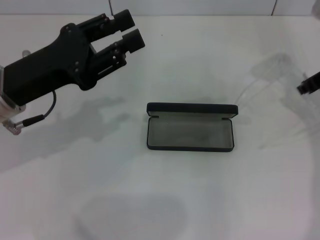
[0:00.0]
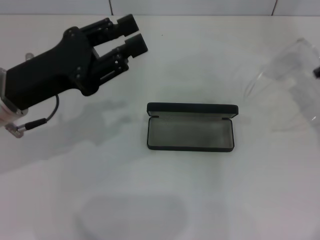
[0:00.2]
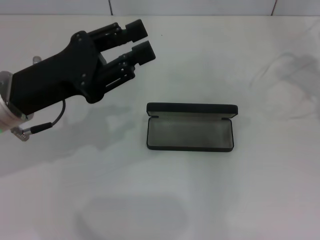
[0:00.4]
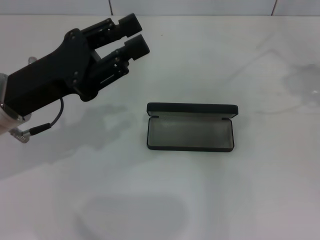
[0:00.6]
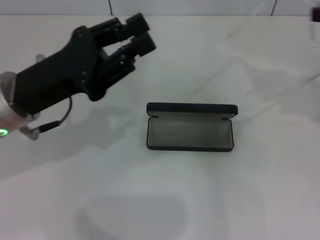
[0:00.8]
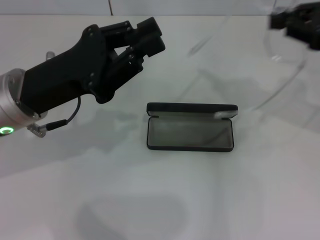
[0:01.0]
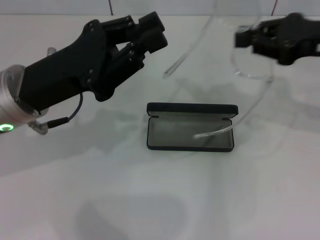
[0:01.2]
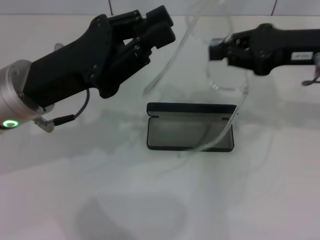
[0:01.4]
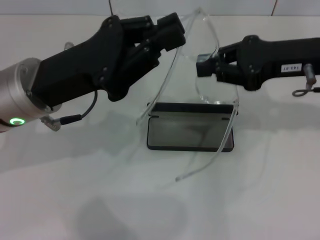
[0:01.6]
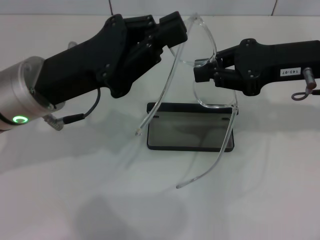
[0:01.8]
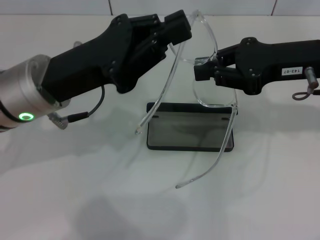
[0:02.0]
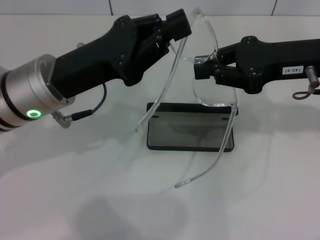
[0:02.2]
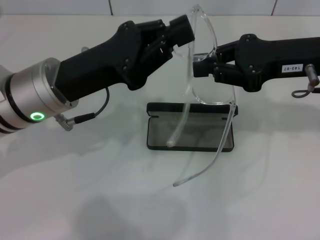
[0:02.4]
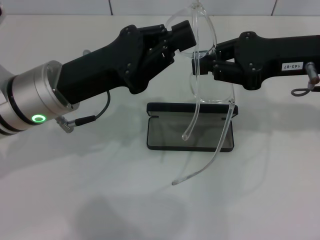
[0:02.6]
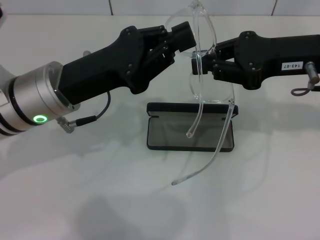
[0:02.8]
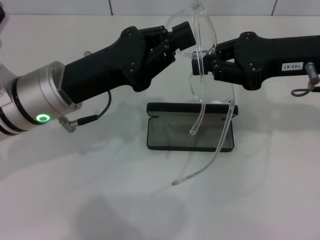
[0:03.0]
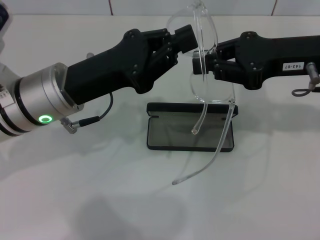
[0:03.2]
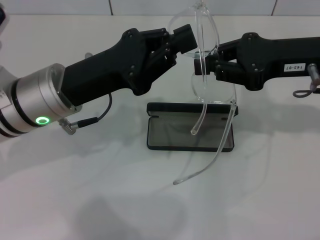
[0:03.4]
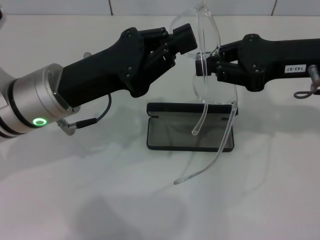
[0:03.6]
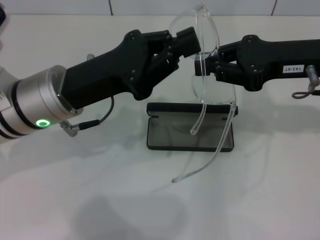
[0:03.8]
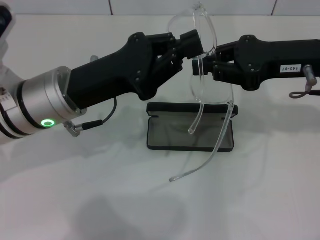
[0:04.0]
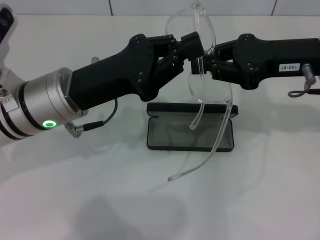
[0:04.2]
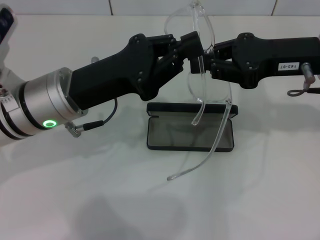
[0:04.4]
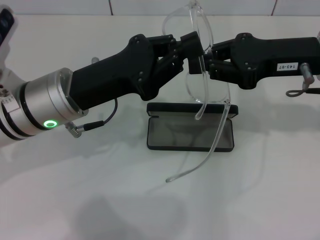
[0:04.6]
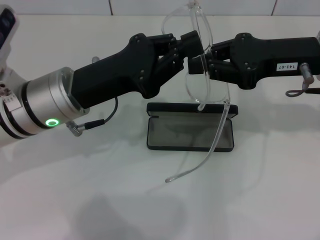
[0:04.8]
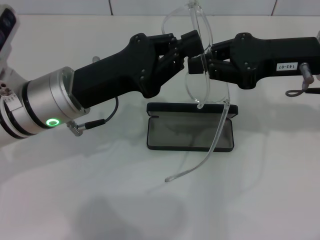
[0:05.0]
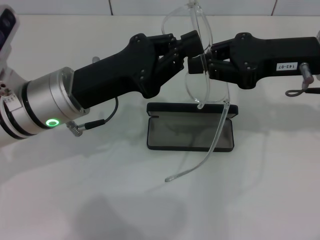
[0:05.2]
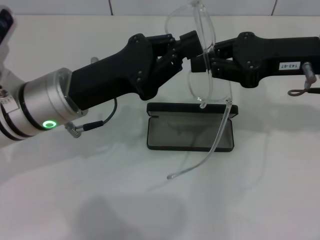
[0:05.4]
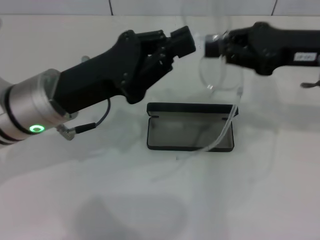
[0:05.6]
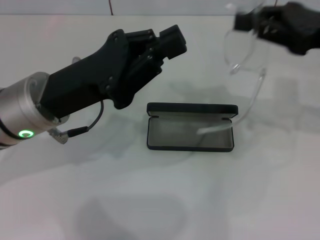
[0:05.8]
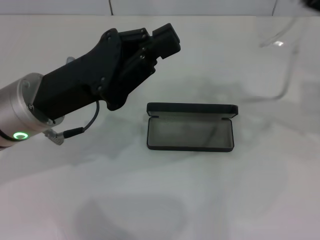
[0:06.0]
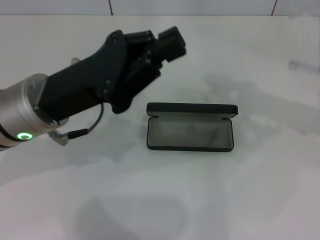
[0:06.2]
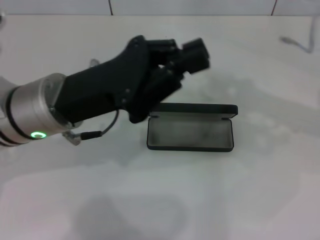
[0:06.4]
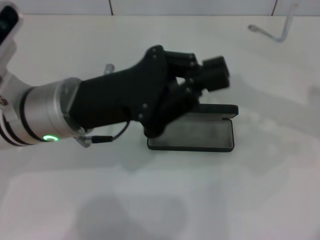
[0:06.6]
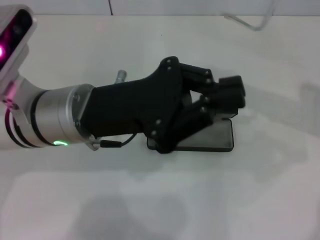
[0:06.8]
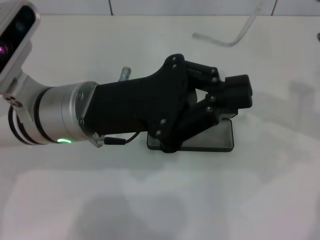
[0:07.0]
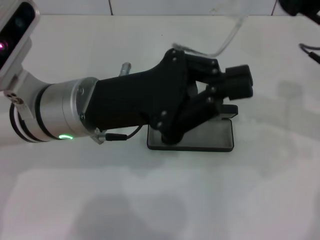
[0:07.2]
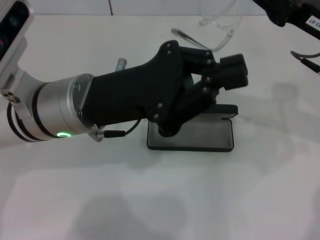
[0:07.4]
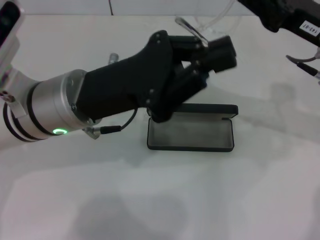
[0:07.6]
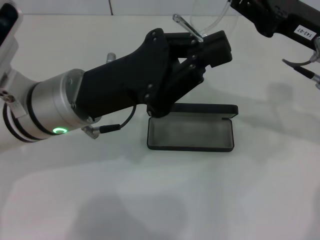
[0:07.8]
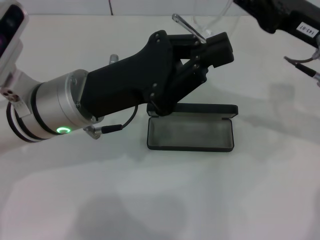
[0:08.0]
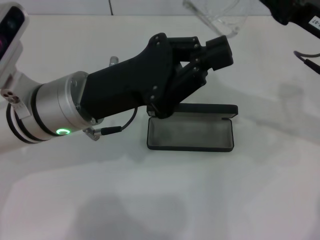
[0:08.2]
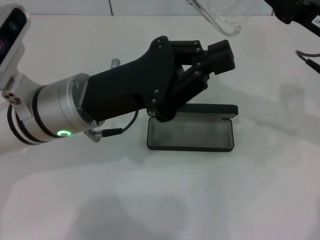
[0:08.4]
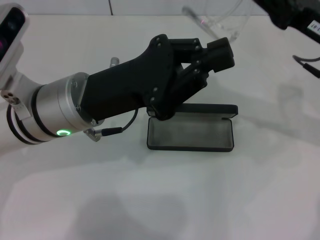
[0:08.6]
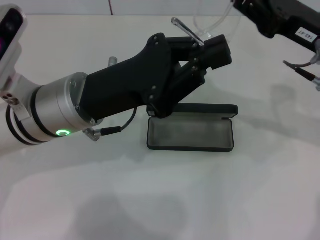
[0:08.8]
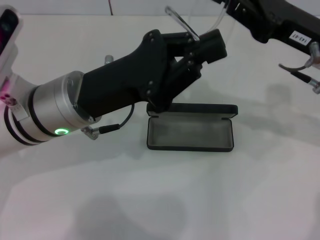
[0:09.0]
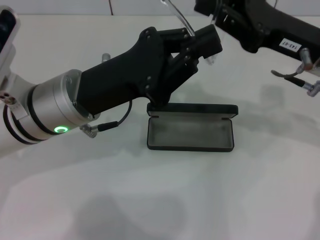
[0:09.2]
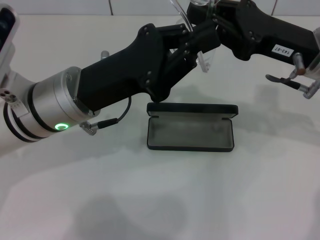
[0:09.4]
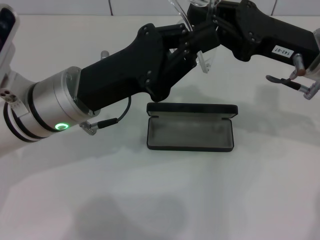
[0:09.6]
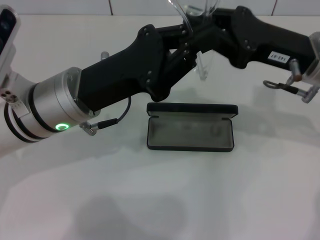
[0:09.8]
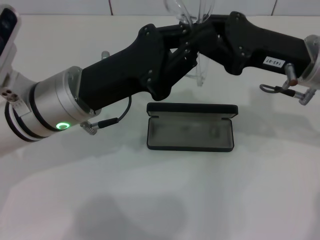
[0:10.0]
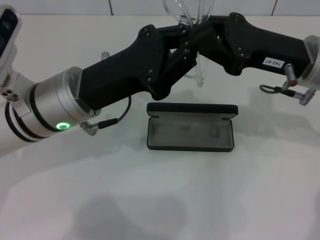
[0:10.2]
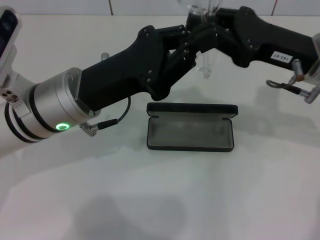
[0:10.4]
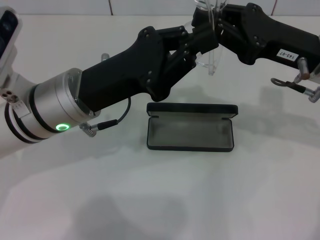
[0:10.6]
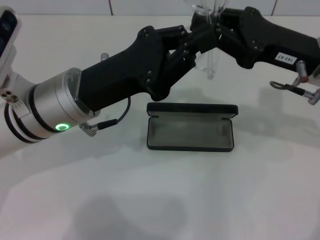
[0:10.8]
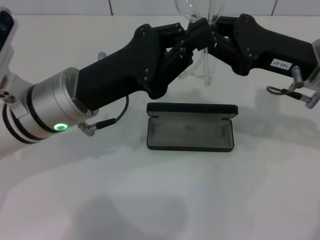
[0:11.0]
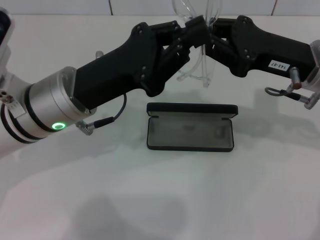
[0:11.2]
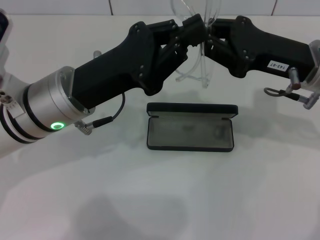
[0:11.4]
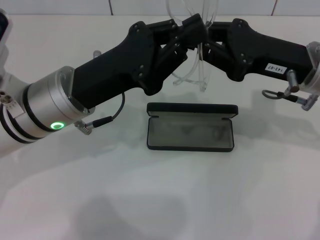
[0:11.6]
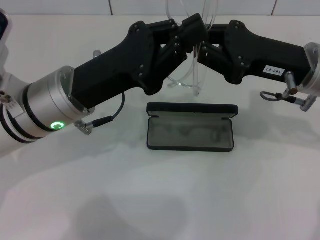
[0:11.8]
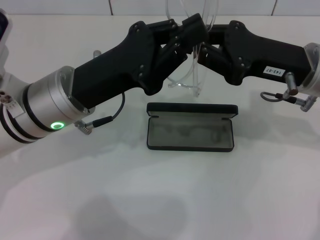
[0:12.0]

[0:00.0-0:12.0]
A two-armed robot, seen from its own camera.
0:00.0 to 0:01.6: The right gripper is displaced backward and to the left by about 10 cm.
0:01.6 to 0:03.0: The grippers stay close to where they were, moving slightly.
0:03.0 to 0:04.4: Both grippers stay about where they are.
0:04.4 to 0:06.0: The right gripper heads to the right, covering some 10 cm.
0:06.0 to 0:07.6: The right gripper travels to the left by about 5 cm.
0:07.6 to 0:10.4: The grippers stay close to where they were, moving slightly.
0:10.4 to 0:12.0: Neither gripper changes place.

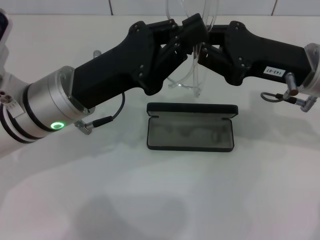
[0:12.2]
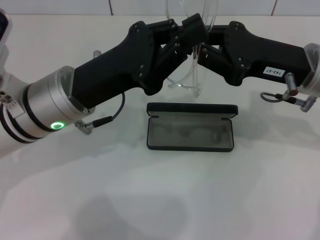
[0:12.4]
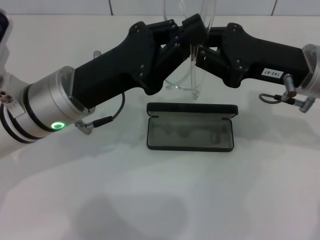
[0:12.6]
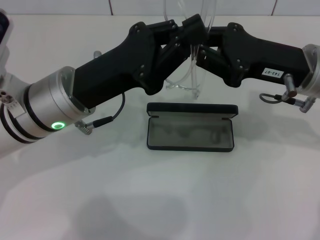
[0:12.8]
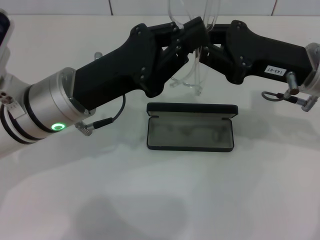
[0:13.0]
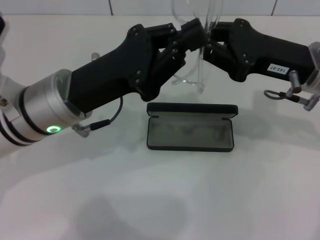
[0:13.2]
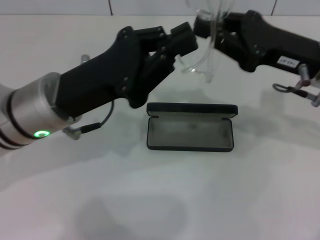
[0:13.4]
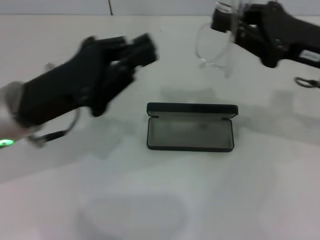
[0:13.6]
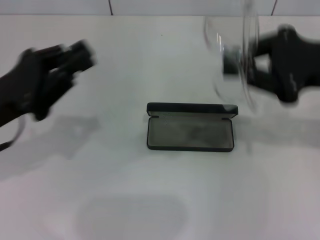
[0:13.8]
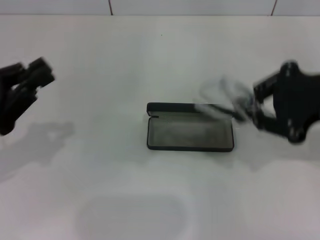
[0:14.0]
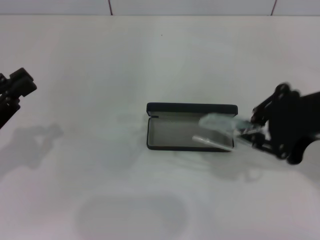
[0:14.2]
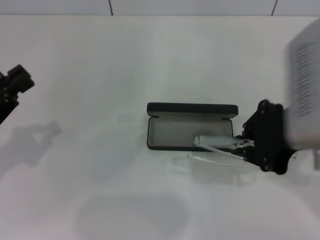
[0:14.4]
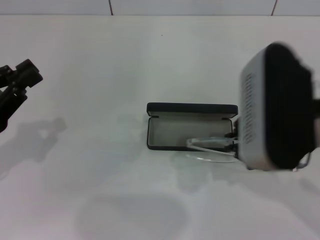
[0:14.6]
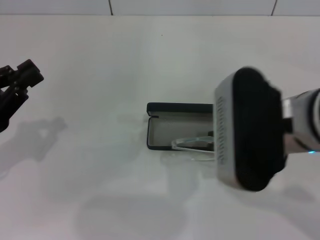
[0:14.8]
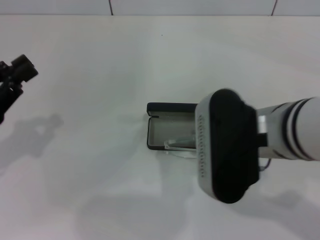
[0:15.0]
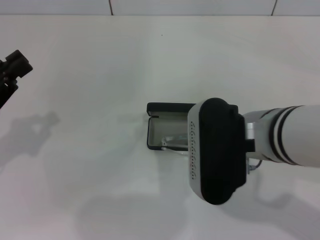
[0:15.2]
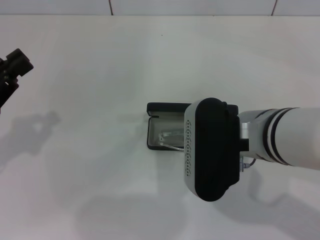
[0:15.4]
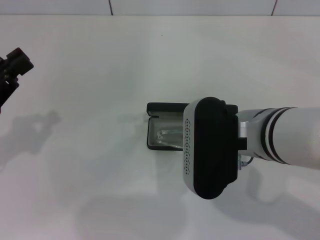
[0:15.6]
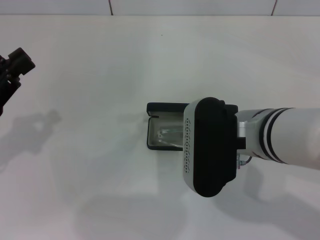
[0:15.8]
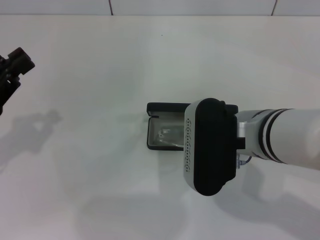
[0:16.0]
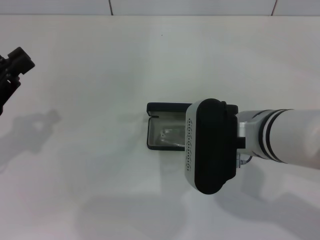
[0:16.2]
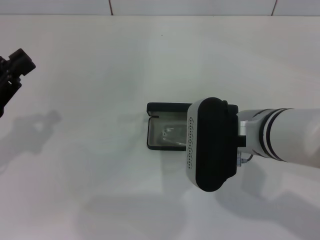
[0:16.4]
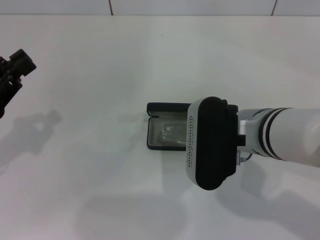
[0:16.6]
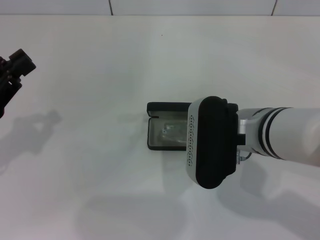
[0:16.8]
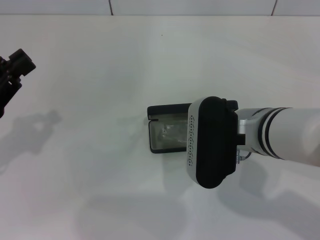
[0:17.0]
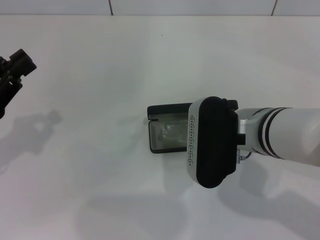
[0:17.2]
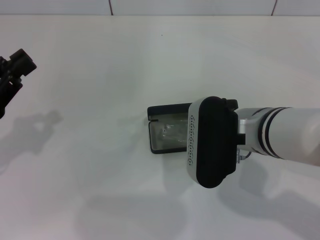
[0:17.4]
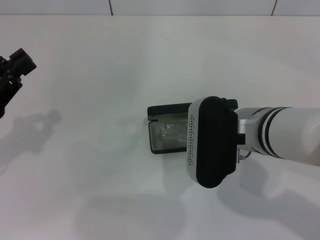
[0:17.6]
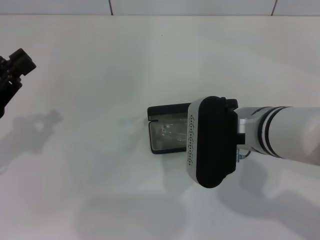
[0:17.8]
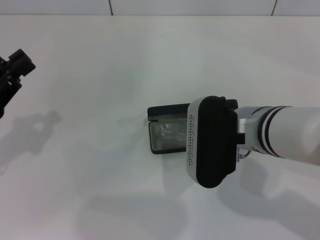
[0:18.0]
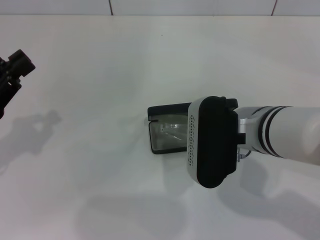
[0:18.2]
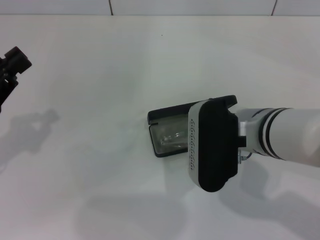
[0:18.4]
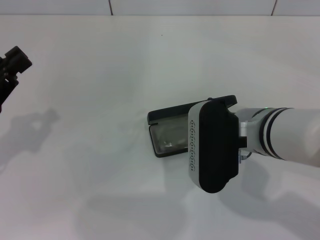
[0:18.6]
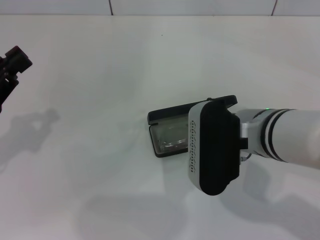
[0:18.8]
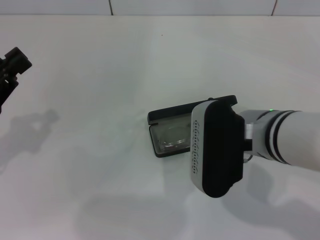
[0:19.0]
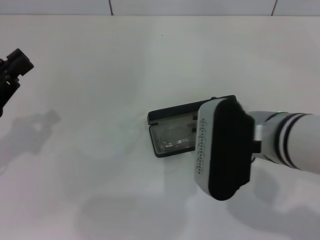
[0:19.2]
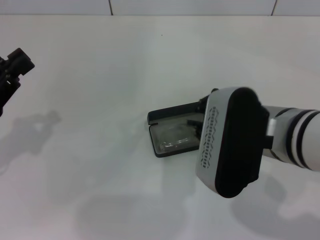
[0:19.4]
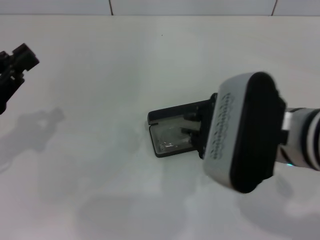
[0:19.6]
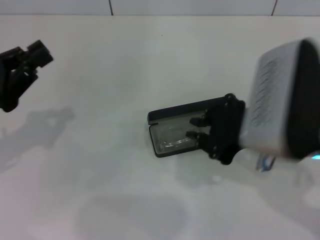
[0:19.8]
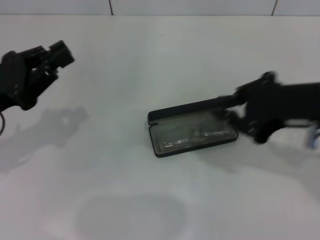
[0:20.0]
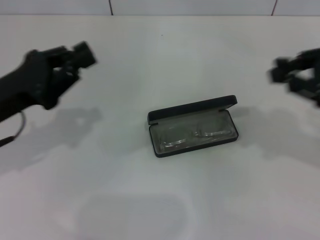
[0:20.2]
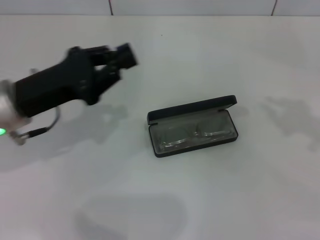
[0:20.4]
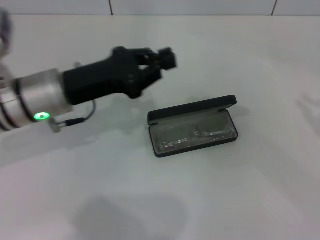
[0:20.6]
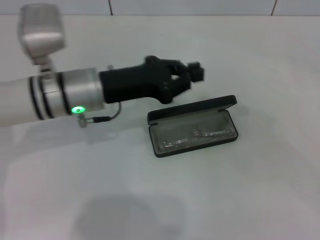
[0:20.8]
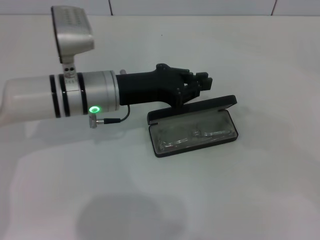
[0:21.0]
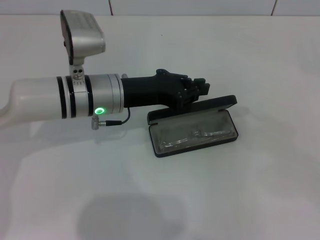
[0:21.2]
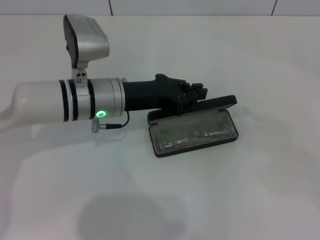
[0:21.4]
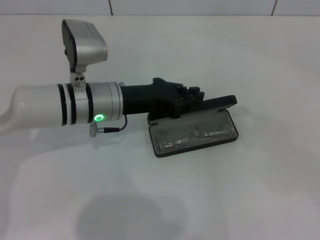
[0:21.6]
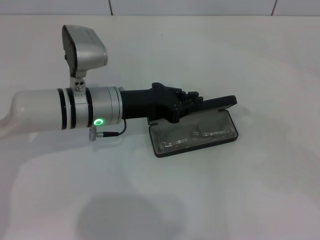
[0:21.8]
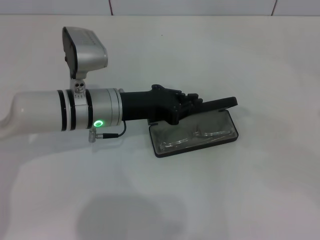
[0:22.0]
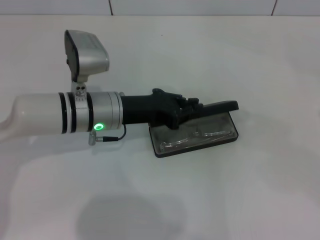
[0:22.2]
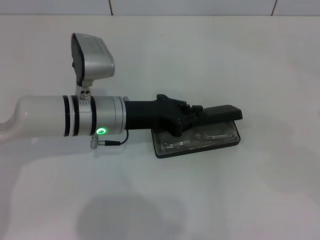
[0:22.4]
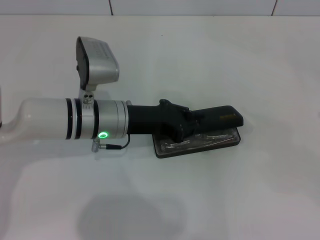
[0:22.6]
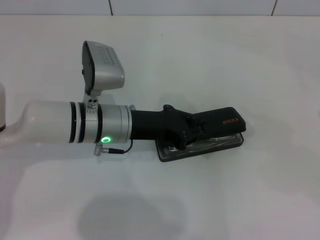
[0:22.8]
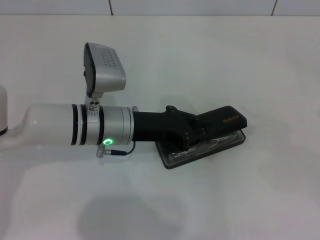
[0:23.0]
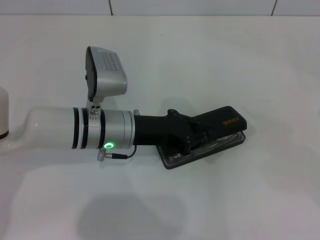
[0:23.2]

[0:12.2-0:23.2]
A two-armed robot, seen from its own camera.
Step, 0:12.8 to 0:18.6: Put the glasses into the case with your right hand.
Step, 0:18.8 to 0:23.2: Close the glasses case with your left hand.
0:12.2 to 0:13.8: The left gripper is displaced to the left by roughly 10 cm, while the right gripper moves to the right, approximately 5 cm.
0:13.8 to 0:15.4: The right gripper moves to the left, about 15 cm, while the left gripper goes about 5 cm to the left.
0:15.4 to 0:17.0: The grippers stay close to where they were, moving slightly.
0:17.0 to 0:18.4: Both grippers stay about where they are.
0:18.4 to 0:20.0: The right gripper heads upward and to the right, covering some 15 cm.
0:20.0 to 0:21.6: The right gripper travels to the right by some 25 cm. Meanwhile the left gripper heads to the right and forward, covering roughly 20 cm.
0:21.6 to 0:23.2: The grippers make only small movements.
